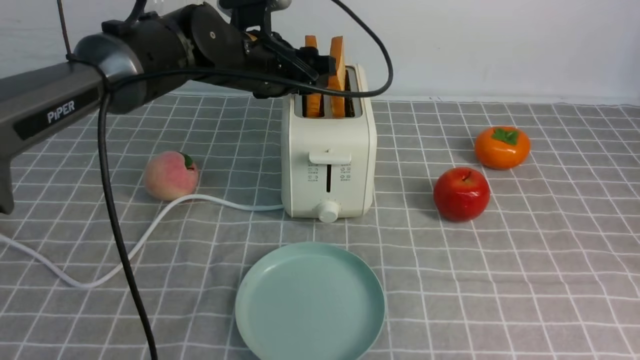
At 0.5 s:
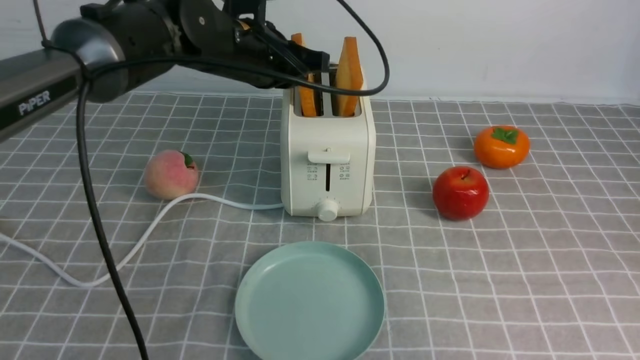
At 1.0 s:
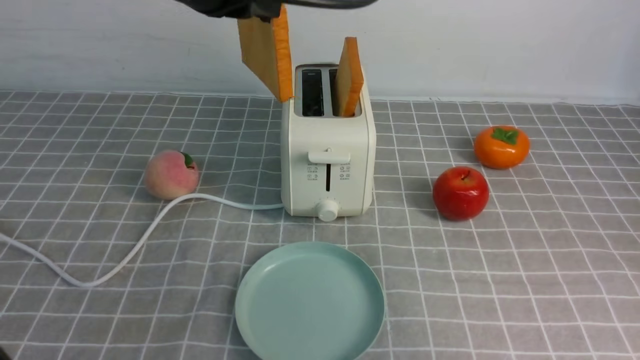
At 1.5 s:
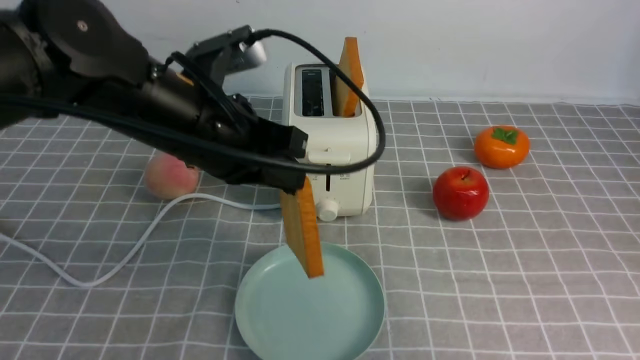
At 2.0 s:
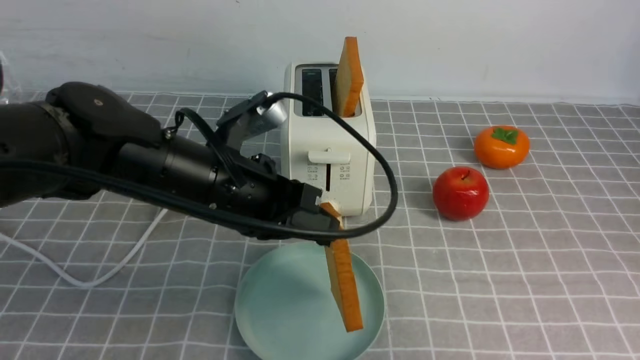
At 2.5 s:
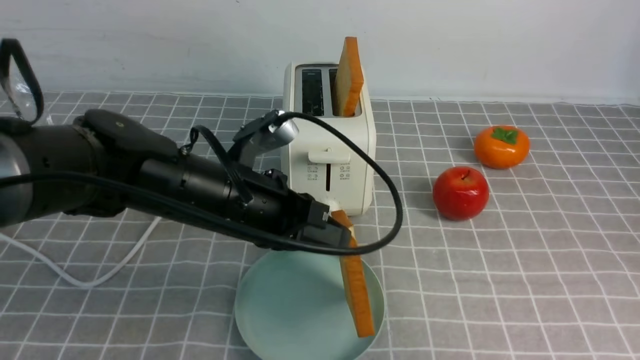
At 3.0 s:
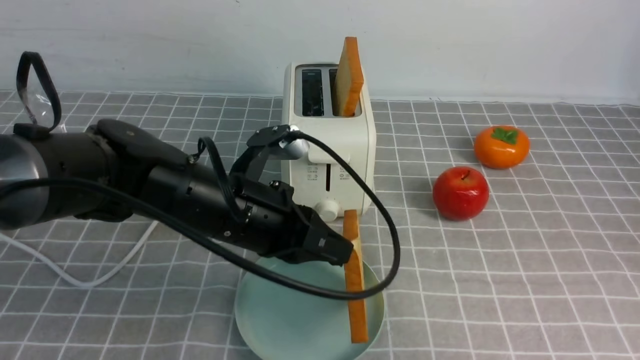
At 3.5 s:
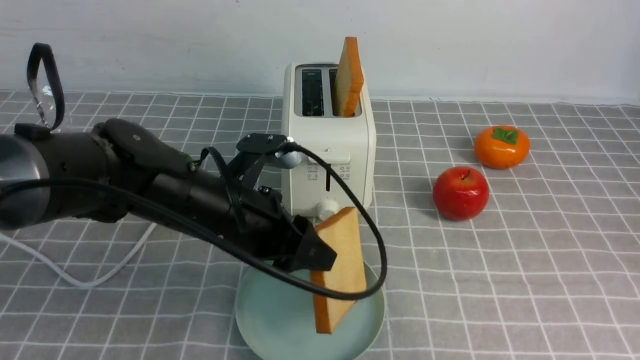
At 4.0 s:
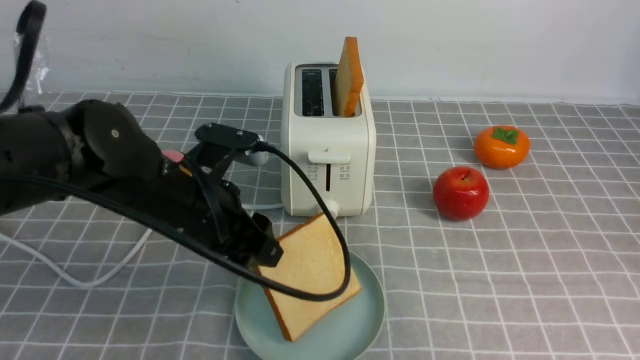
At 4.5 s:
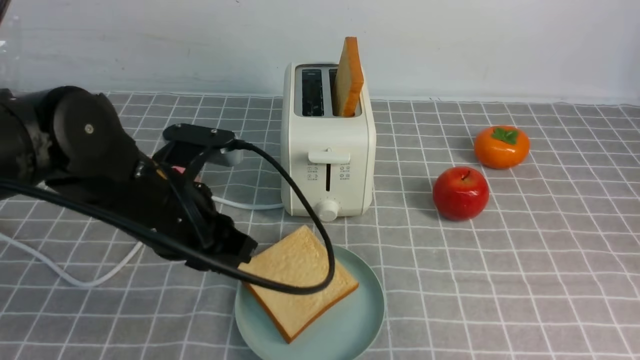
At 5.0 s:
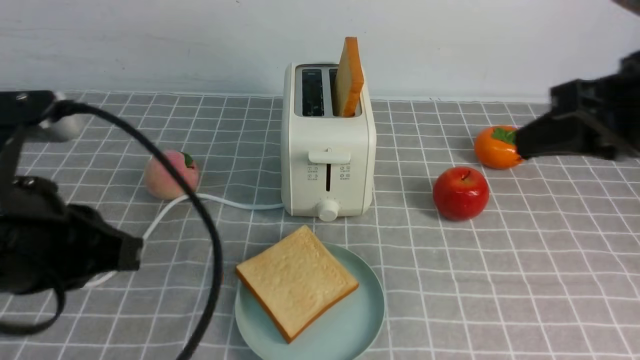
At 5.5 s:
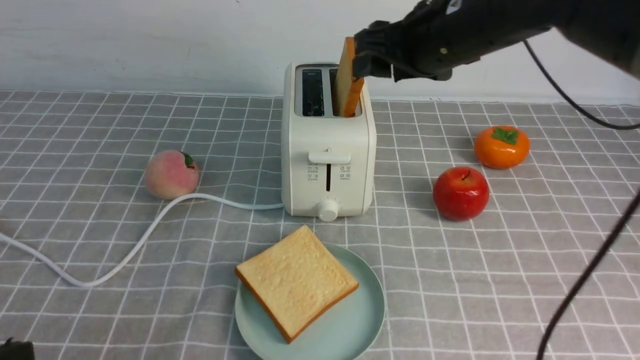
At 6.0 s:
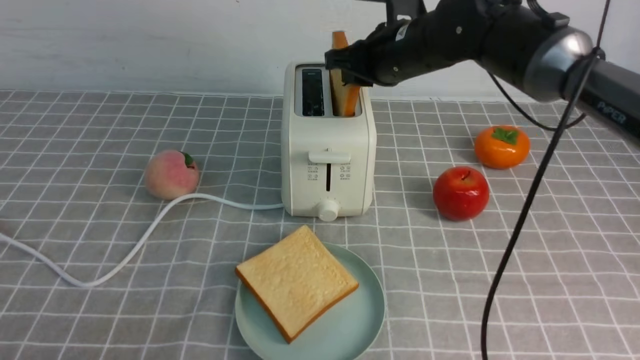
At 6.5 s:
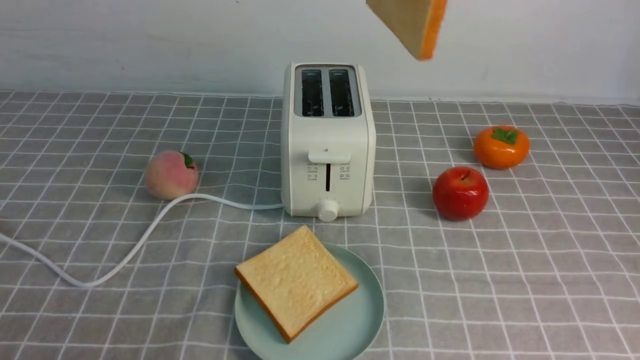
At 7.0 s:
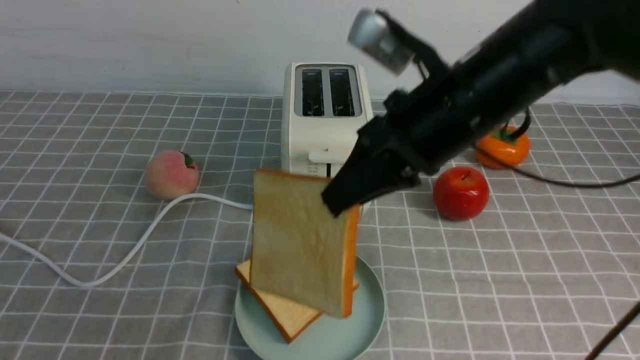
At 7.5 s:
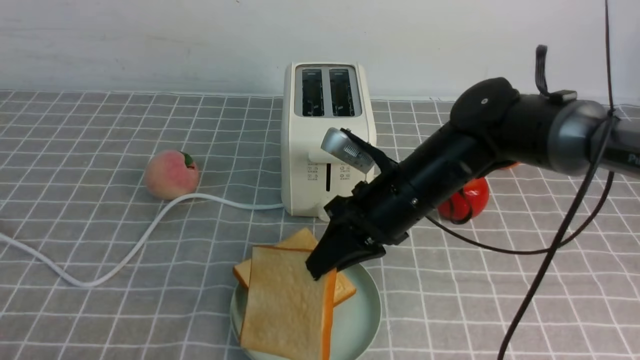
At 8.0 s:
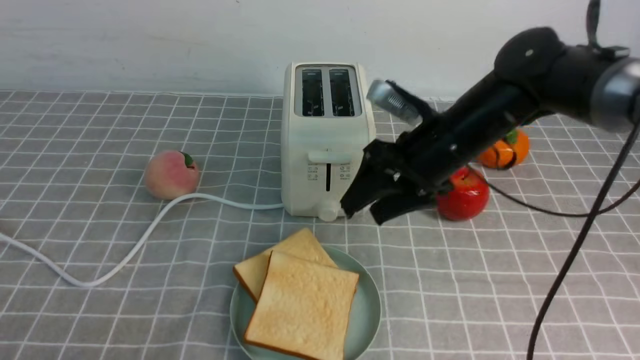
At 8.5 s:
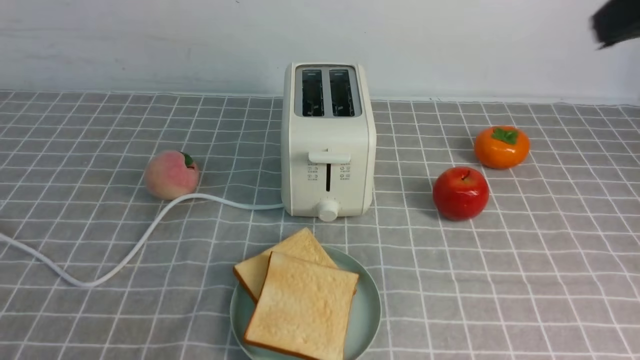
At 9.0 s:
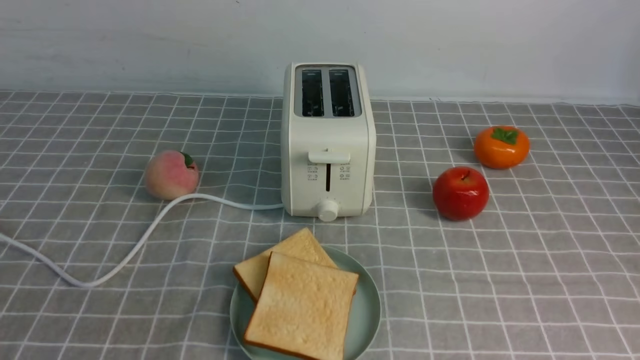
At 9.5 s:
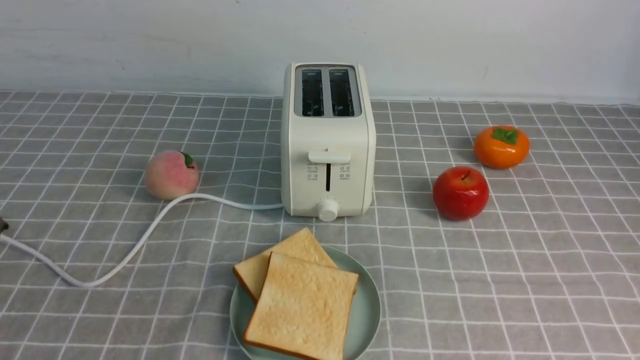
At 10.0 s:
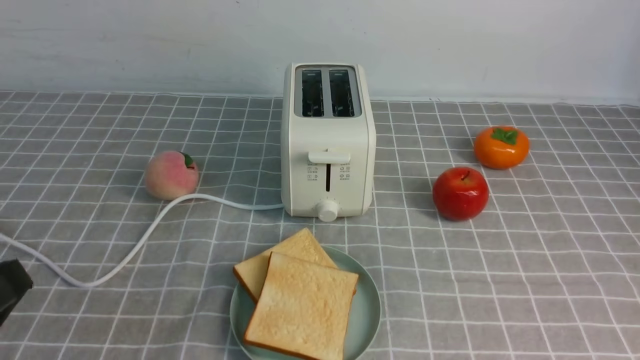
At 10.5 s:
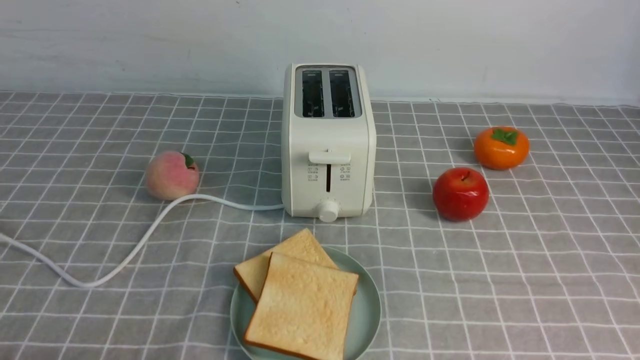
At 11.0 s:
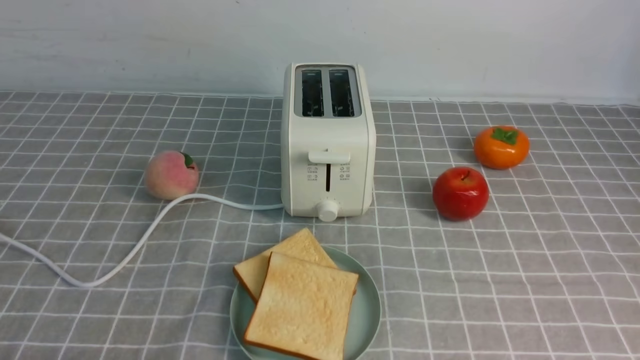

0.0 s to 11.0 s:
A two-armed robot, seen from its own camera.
Task of the whole recording: take toasted bread from bread machine on grey coffee table place on plate.
Step, 1.0 to 4.0 s: use the left arm to put a slice of bread into the empty plate.
Step, 4.5 to 6.0 s: use the right arm to take out a slice of bread.
Step, 6.5 to 8.0 s: use the right arm to put a slice of bread into the plate.
0.0 to 2.0 s: The left gripper shifts approximately 15 cm backward, and closes.
2.0 to 3.5 s: The left gripper is displaced downward by about 5 cm, and opens its fingers.
3.5 to 5.5 s: The left gripper travels backward and to the left by roughly 30 cm, and closes up, while the right gripper is displaced forward and to the left by about 30 cm, and opens.
5.5 to 7.5 s: The right gripper shifts some 15 cm downward and backward, and closes.
7.5 to 9.0 s: The right gripper travels backward, to the right and upward by roughly 40 cm, and opens and closes again.

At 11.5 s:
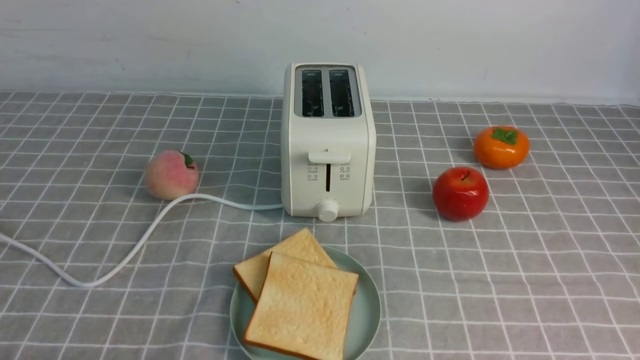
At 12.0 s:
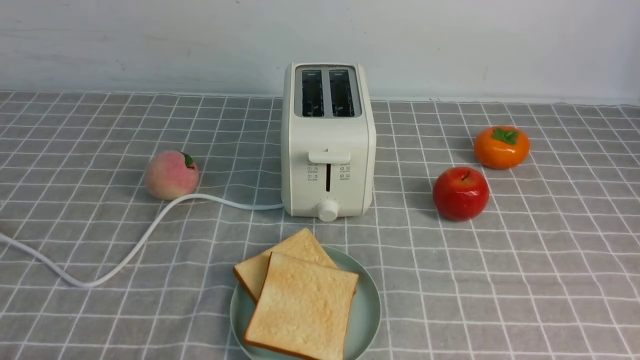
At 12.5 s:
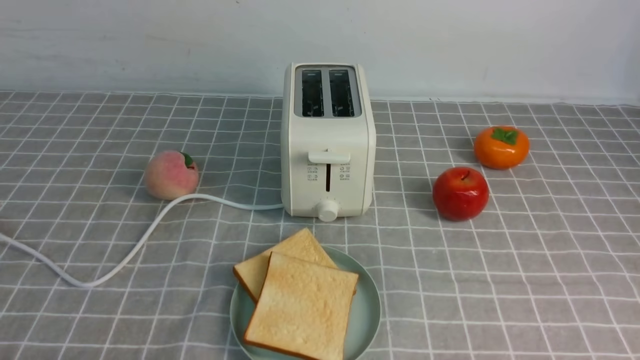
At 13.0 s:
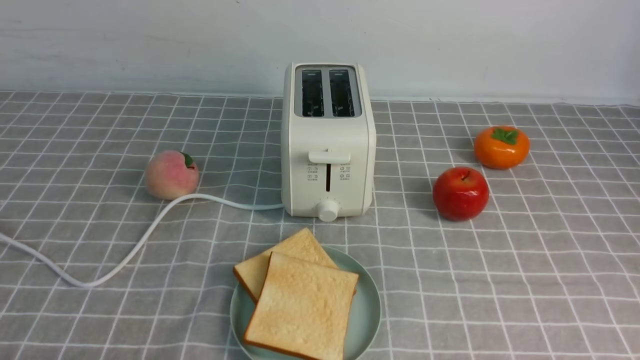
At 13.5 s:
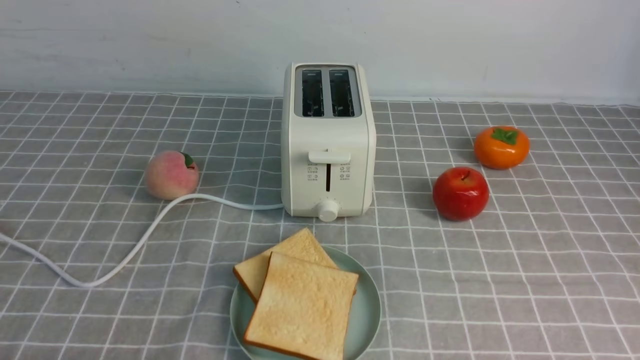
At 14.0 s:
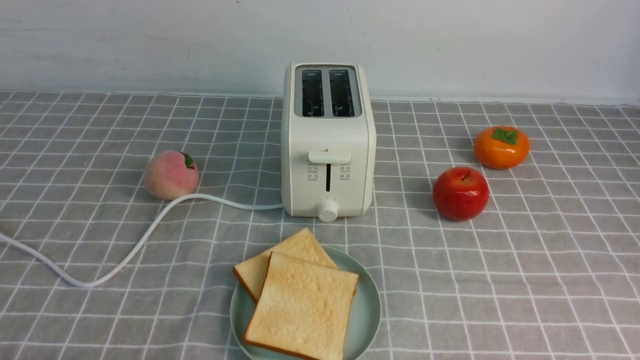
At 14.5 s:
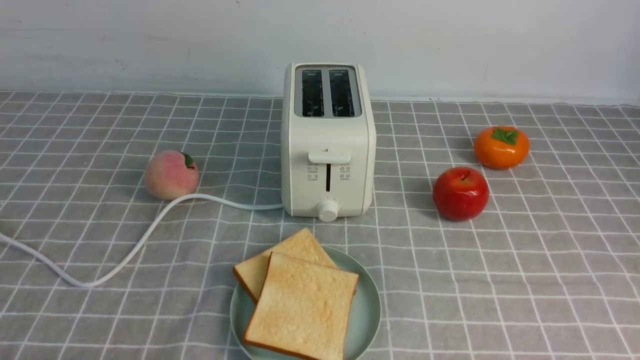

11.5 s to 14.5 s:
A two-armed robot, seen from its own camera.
Task of the whole recording: take toasted bread from bread machine on grey coffee table place on plate.
13.0 to 14.5 s: Both grippers stay about where they are.

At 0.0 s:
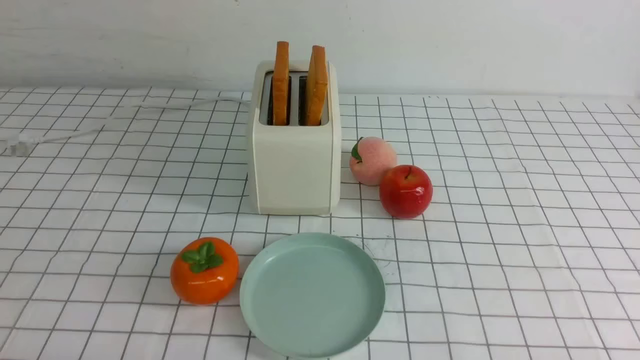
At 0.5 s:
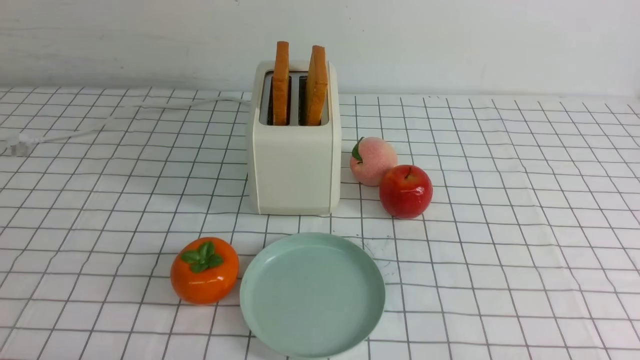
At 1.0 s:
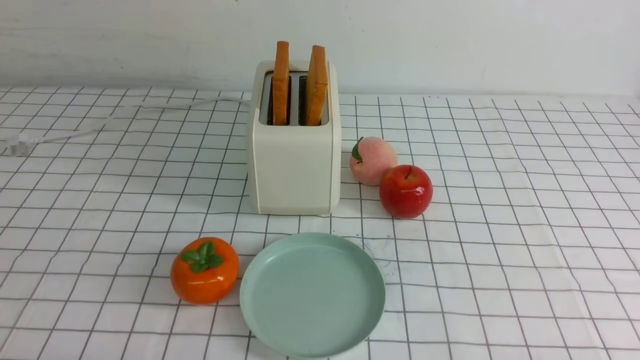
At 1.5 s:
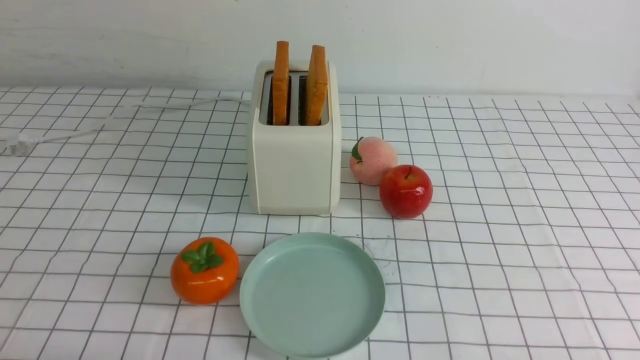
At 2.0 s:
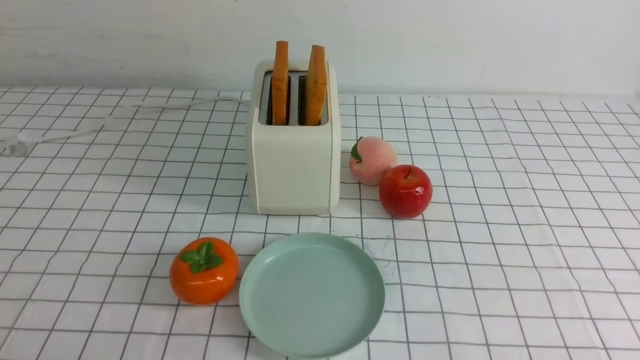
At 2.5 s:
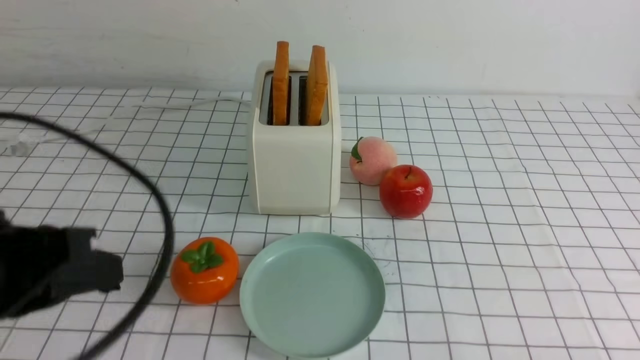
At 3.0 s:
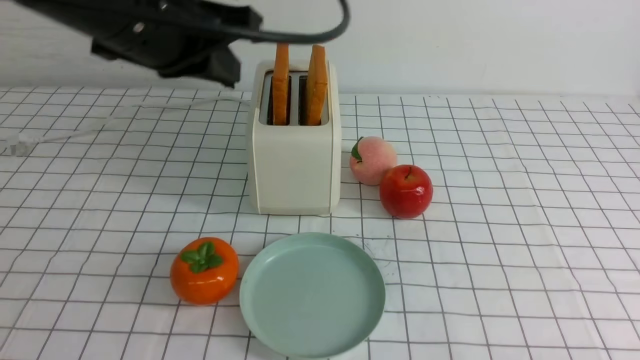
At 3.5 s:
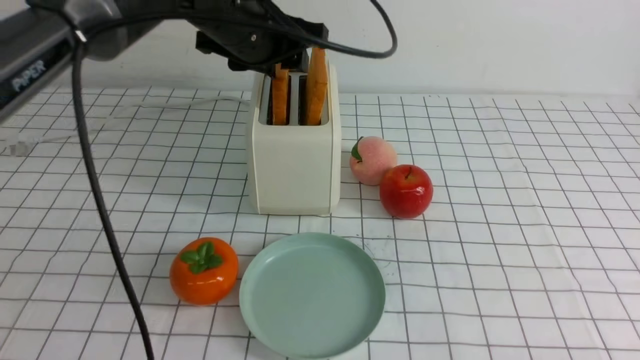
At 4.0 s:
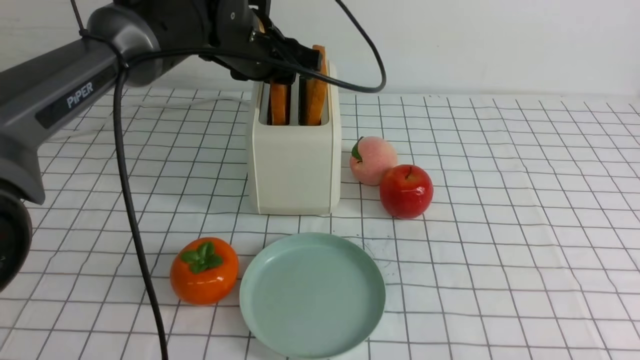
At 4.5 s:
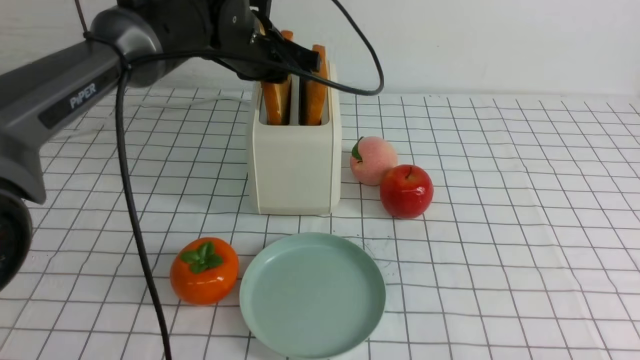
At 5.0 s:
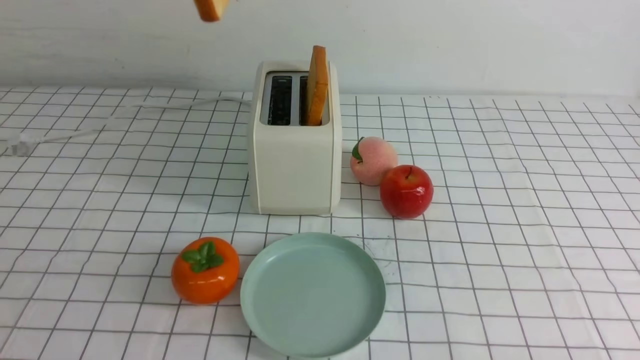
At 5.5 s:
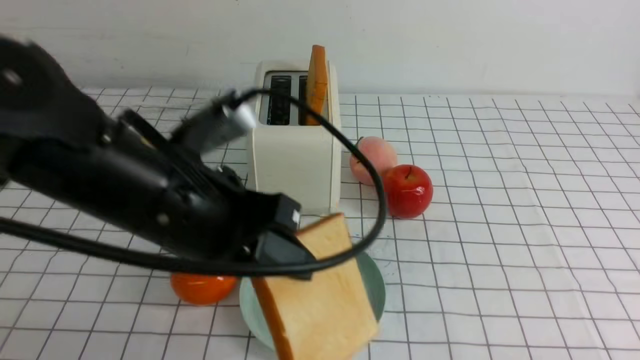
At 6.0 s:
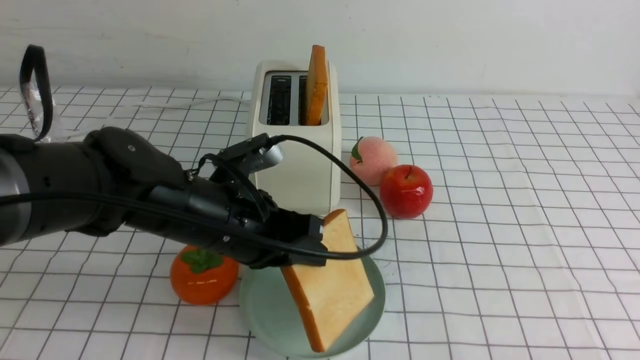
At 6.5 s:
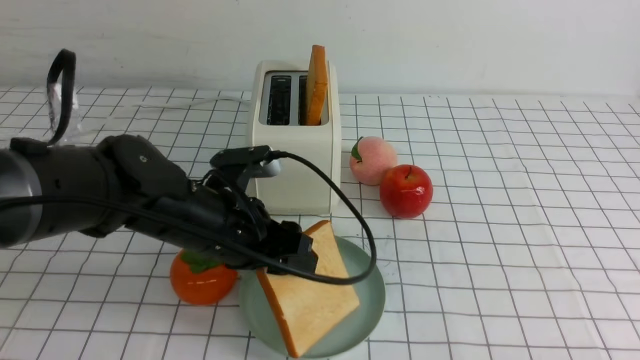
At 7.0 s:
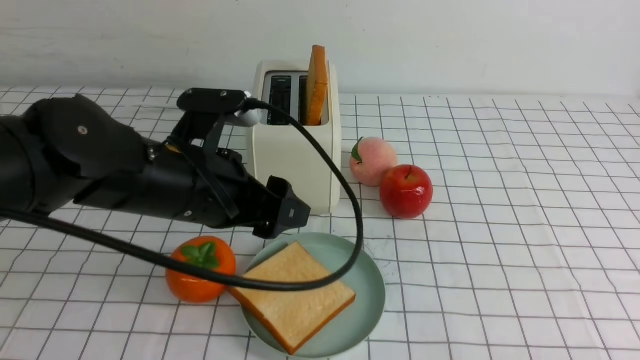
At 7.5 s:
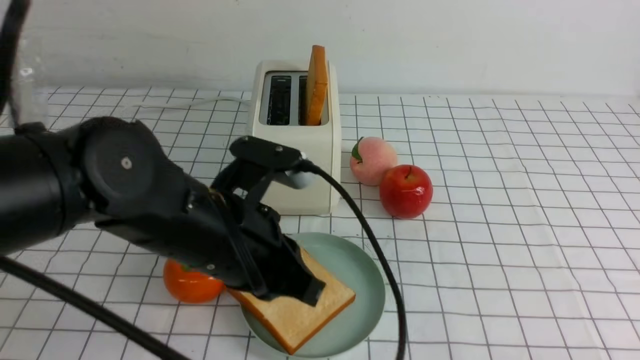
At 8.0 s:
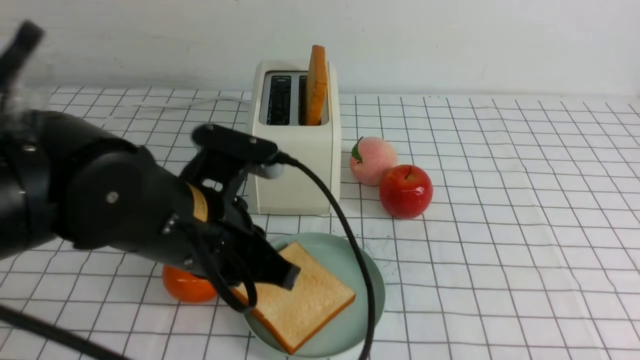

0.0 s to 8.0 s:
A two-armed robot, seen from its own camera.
Task of the whole recording: take toasted bread from bread machine on white checkered table place on plate.
Step, 0.0 to 4.5 s: use the left arm to take out a slice of bread.
Step, 5.0 to 6.5 s: use the left arm to put a slice of bread into the empty plate.
2.0 to 4.0 s: The left gripper goes some 40 cm forward and to the right, and closes, then reopens.
4.0 to 6.0 s: The left gripper moves backward and downward, about 20 cm.
6.0 to 8.0 s: The left gripper is displaced upward and backward by about 10 cm, and opens, then closes once more.
